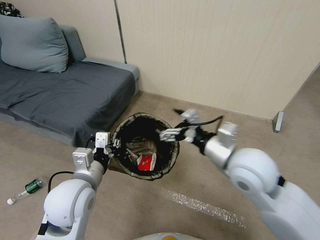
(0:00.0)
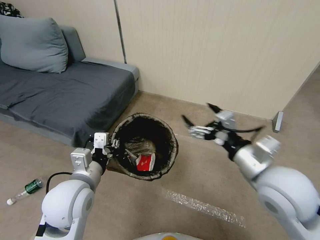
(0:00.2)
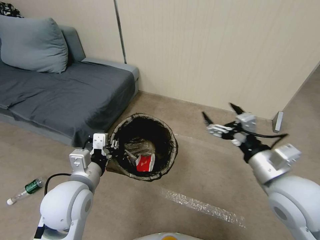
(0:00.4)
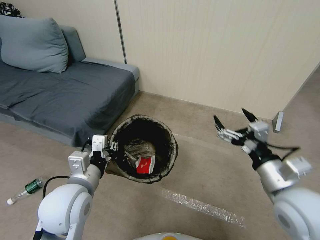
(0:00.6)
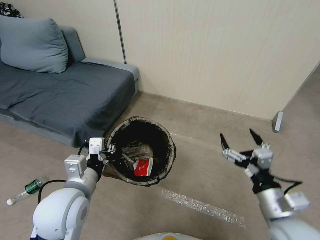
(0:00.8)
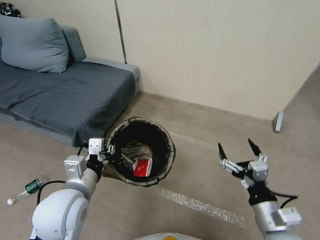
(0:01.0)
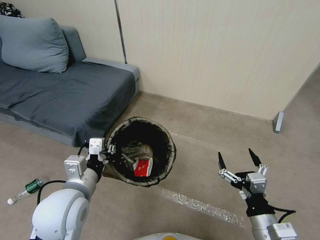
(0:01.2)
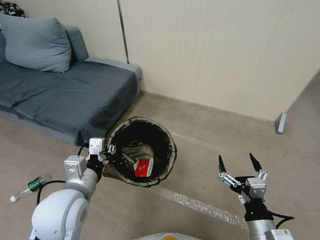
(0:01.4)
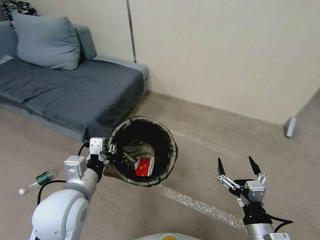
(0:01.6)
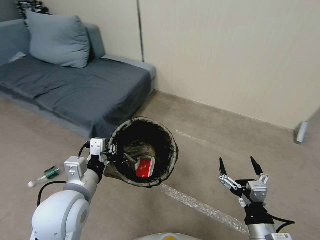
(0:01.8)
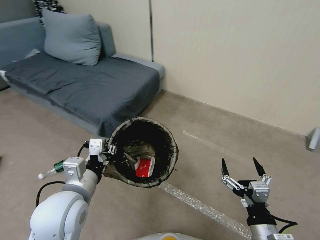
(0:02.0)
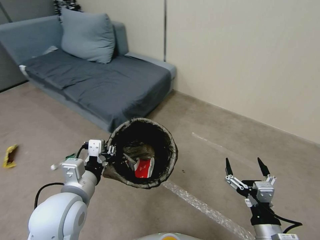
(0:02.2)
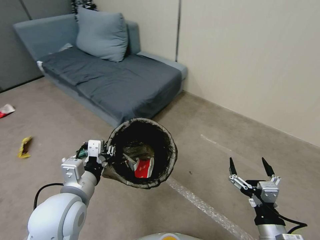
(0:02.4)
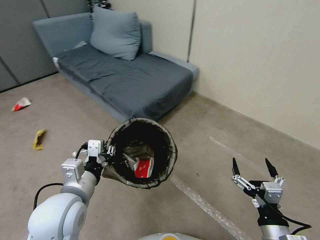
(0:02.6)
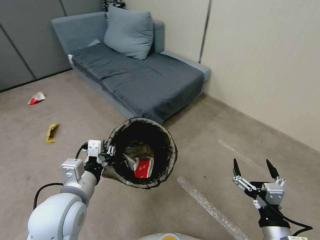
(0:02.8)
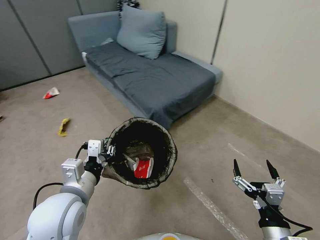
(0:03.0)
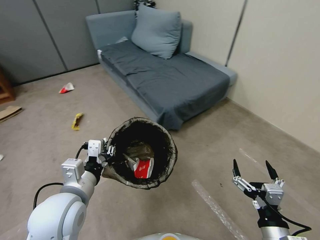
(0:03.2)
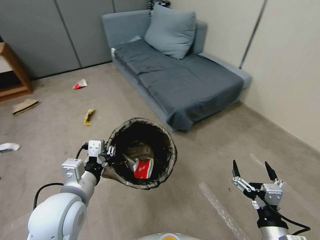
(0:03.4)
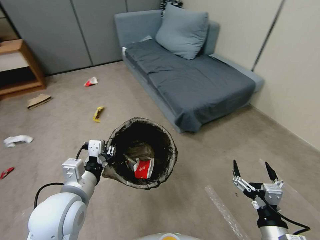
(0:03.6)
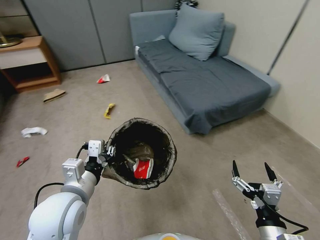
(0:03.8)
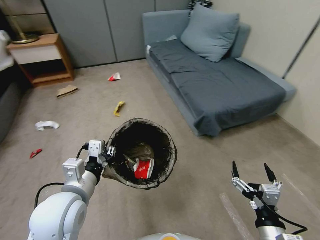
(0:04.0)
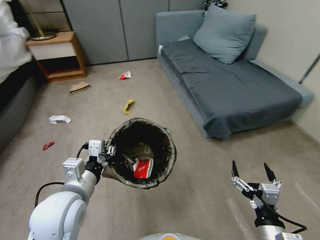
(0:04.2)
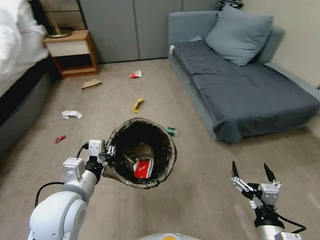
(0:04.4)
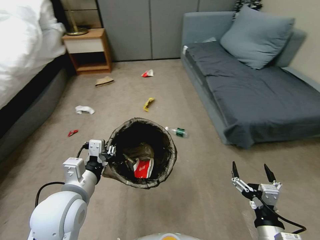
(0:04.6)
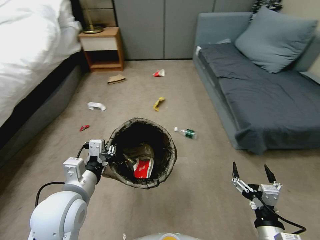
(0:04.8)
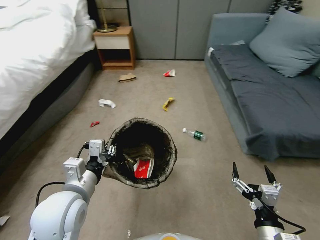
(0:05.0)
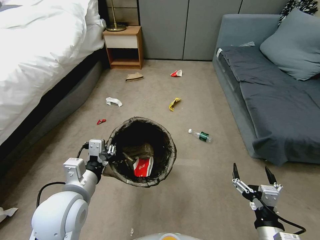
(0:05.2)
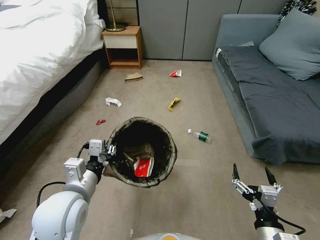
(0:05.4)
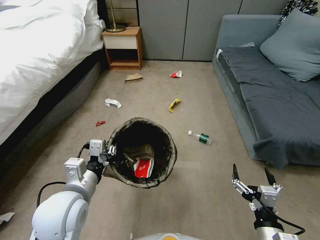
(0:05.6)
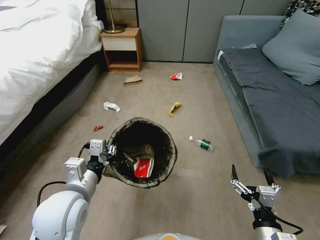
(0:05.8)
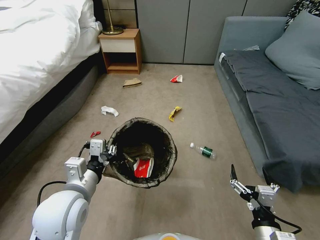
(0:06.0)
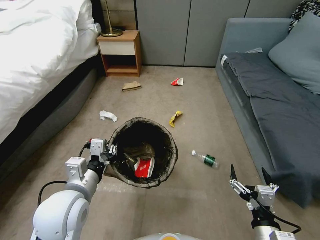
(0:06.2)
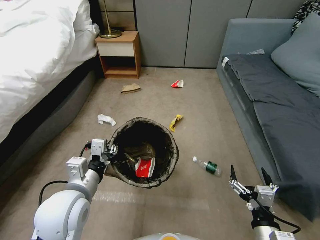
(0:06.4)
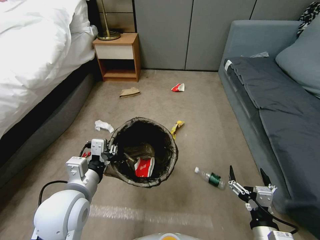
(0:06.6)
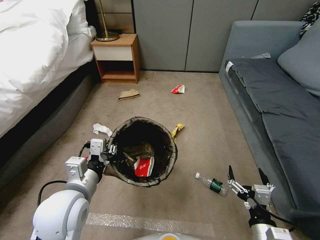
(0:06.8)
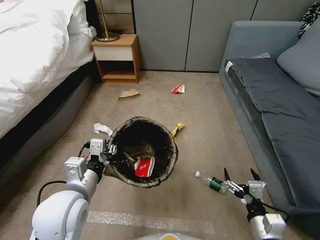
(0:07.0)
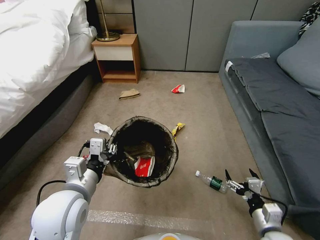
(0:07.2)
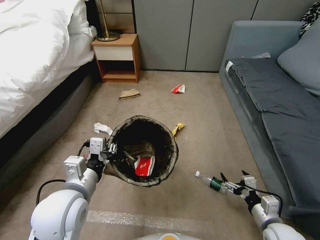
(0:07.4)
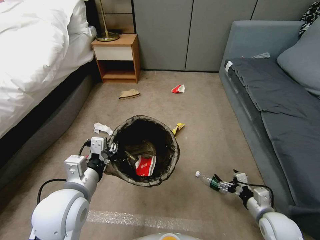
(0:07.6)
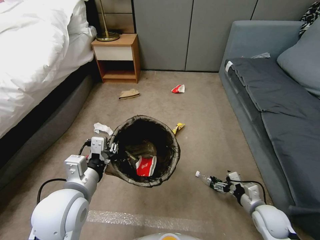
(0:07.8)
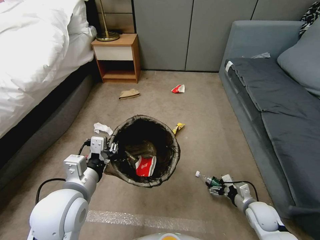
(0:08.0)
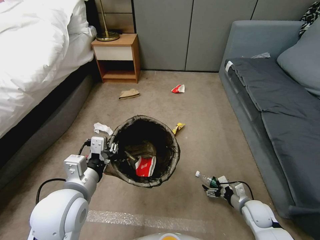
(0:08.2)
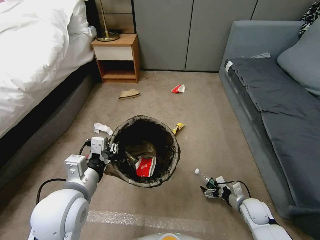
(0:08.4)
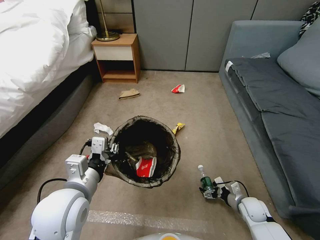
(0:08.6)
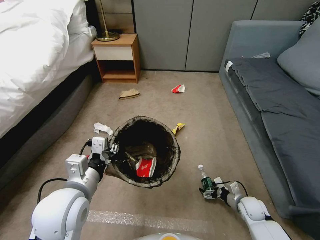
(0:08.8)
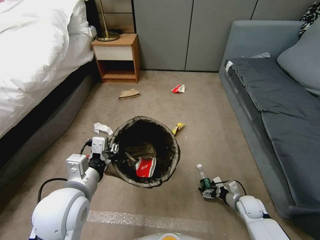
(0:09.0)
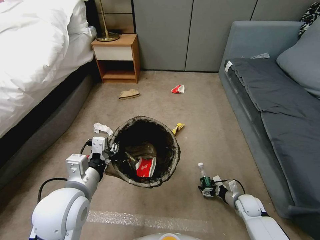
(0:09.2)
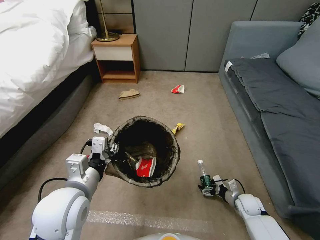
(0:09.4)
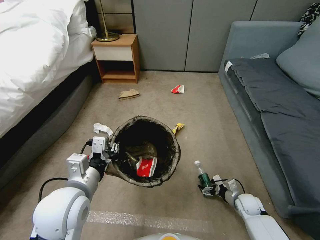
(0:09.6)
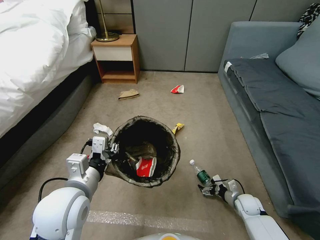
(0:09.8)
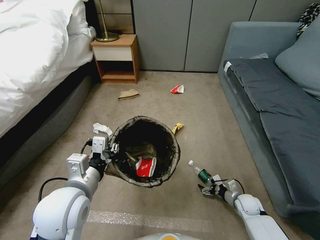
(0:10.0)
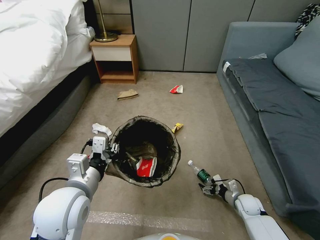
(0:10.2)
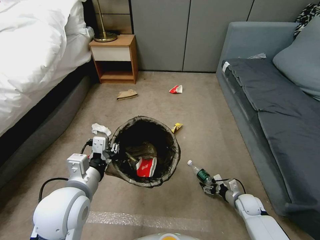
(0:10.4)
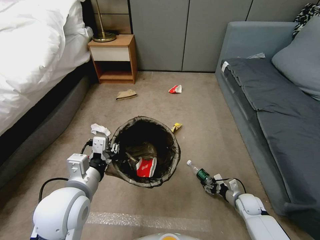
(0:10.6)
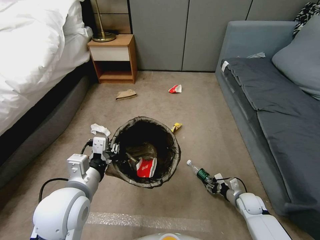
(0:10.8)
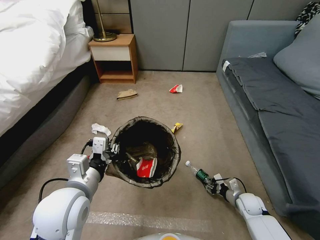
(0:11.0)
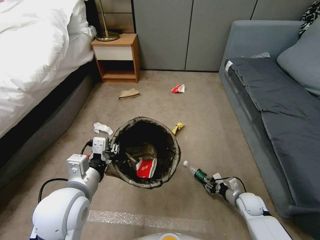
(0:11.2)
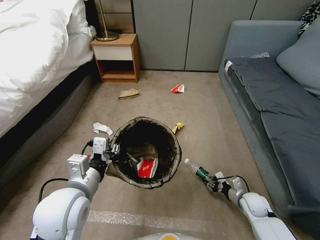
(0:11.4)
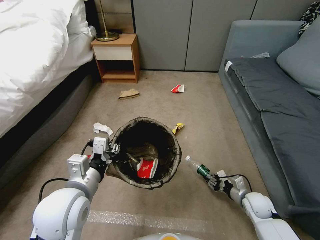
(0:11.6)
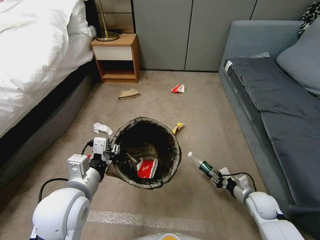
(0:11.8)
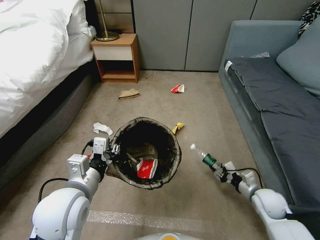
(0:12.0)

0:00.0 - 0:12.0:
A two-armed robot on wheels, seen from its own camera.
Task of the whole recording: Pick up the trash bin, then pick up the garbage from the floor and place it into the trash bin.
0:00.0 - 0:01.6: The right gripper shifts about 25 cm backward and downward.
0:06.0 - 0:07.6: The right gripper moves forward, to the right and downward, approximately 15 cm.
0:07.6 - 0:09.0: The right gripper is displaced downward and forward by approximately 15 cm.
0:09.0 - 0:10.4: There are only small adjustments of the grippers.
0:10.4 - 0:12.0: The right gripper heads upward, covering roughly 10 cm, and closes.

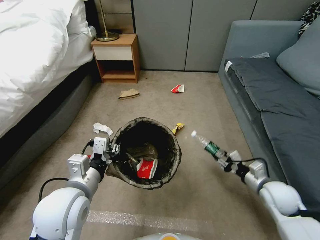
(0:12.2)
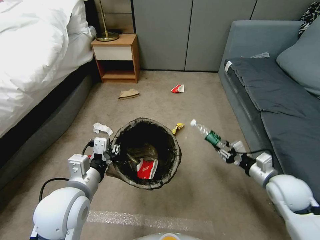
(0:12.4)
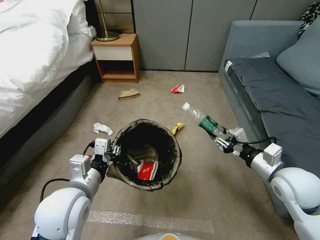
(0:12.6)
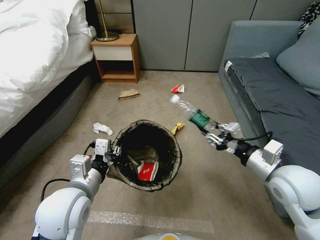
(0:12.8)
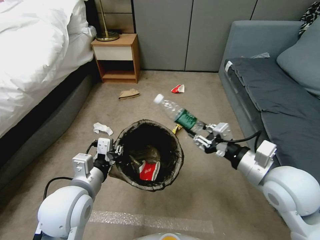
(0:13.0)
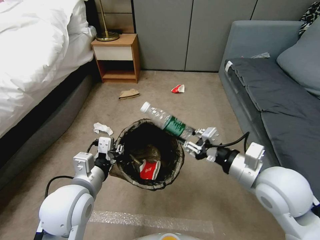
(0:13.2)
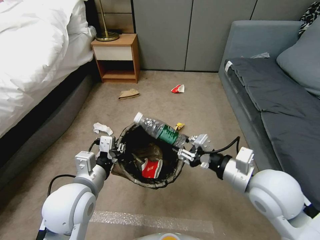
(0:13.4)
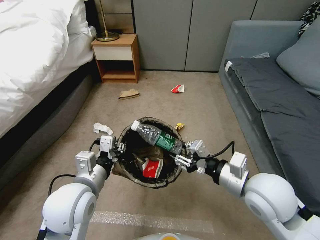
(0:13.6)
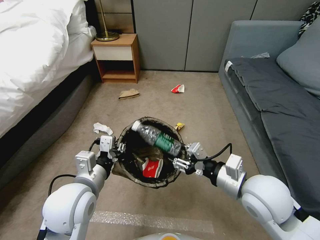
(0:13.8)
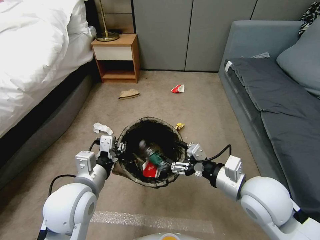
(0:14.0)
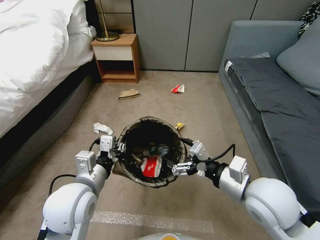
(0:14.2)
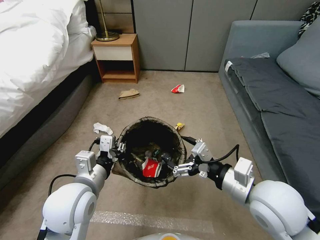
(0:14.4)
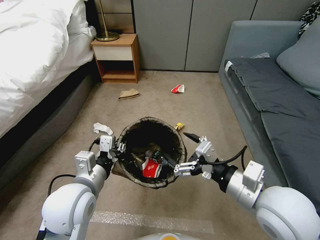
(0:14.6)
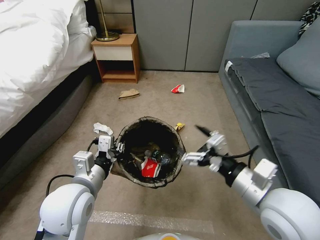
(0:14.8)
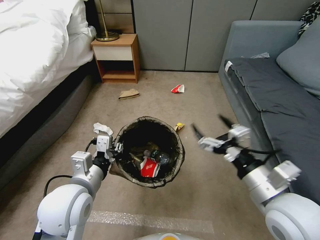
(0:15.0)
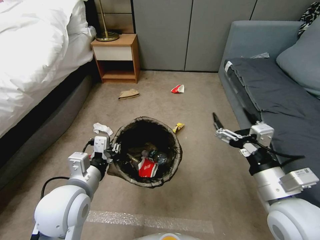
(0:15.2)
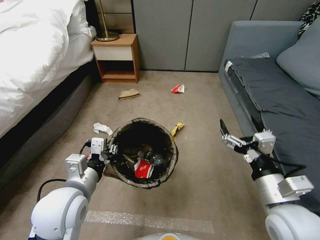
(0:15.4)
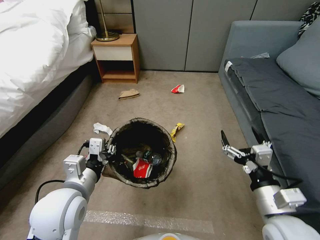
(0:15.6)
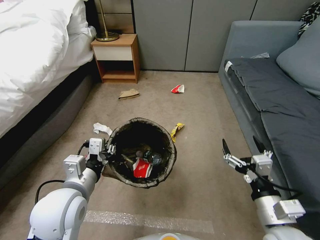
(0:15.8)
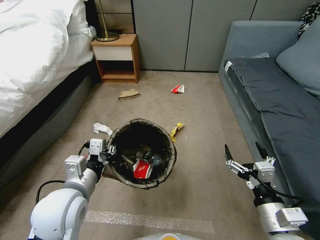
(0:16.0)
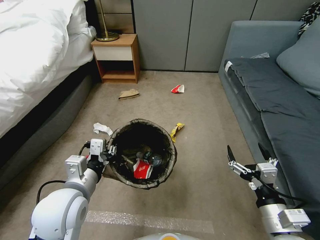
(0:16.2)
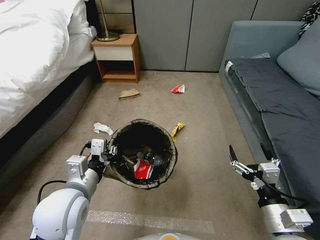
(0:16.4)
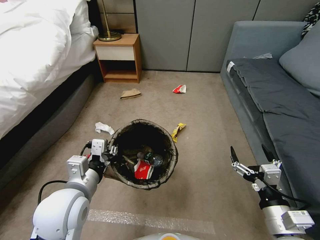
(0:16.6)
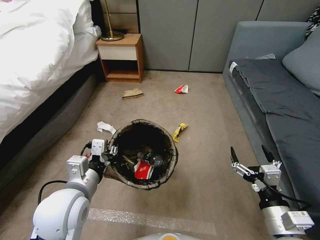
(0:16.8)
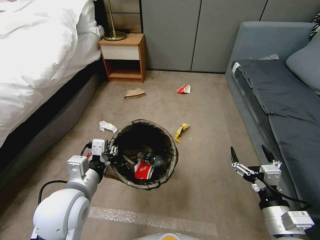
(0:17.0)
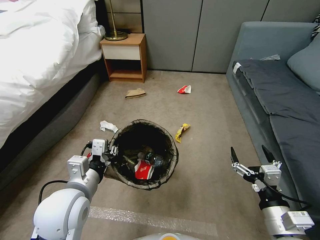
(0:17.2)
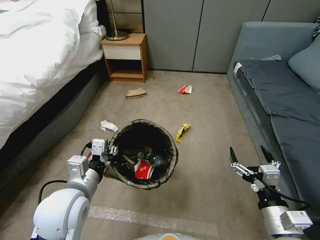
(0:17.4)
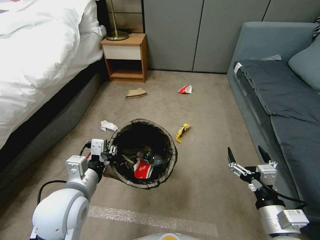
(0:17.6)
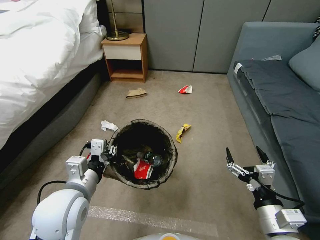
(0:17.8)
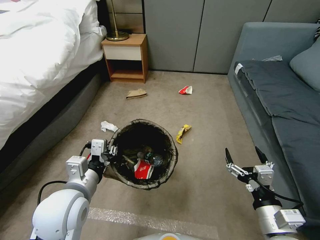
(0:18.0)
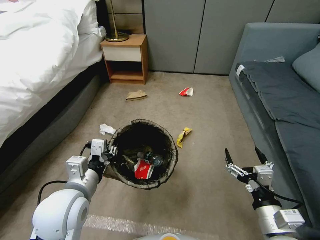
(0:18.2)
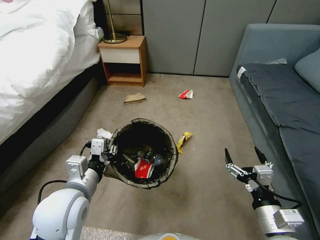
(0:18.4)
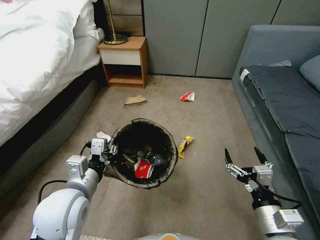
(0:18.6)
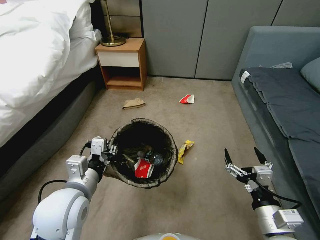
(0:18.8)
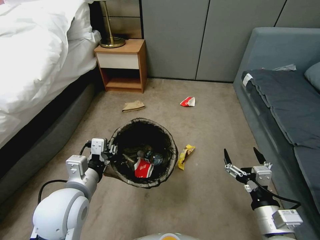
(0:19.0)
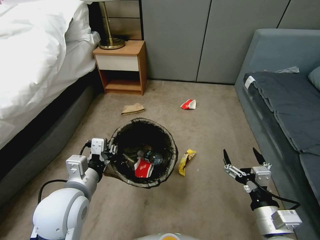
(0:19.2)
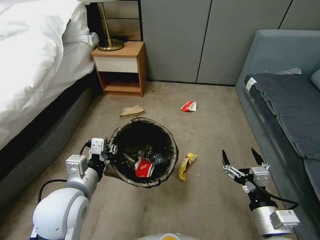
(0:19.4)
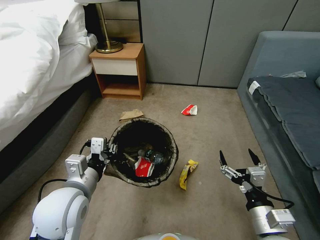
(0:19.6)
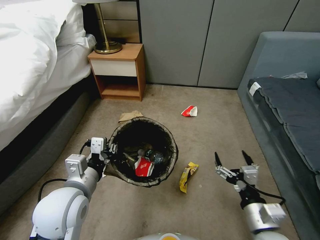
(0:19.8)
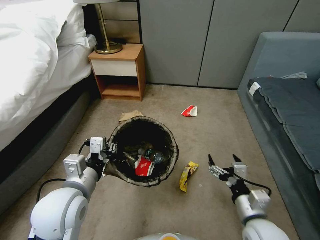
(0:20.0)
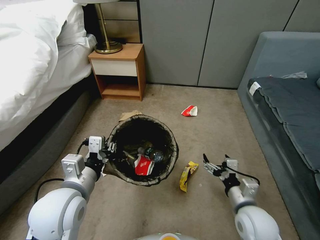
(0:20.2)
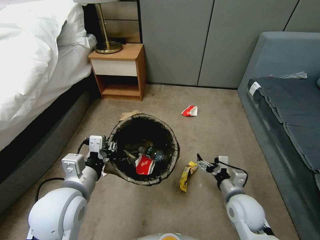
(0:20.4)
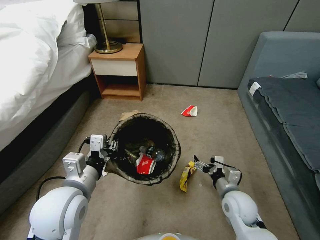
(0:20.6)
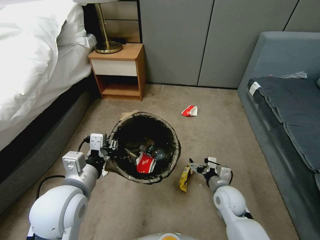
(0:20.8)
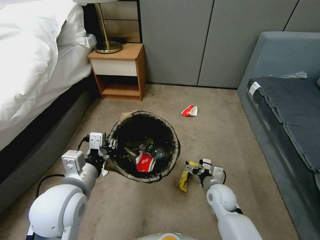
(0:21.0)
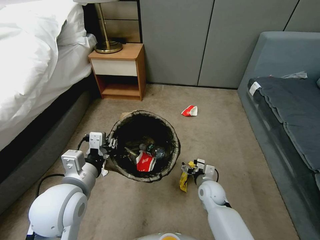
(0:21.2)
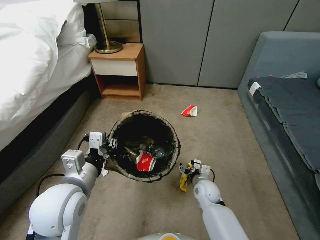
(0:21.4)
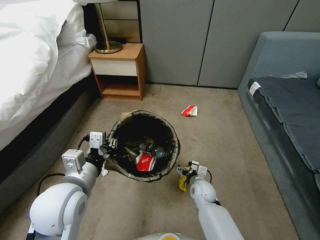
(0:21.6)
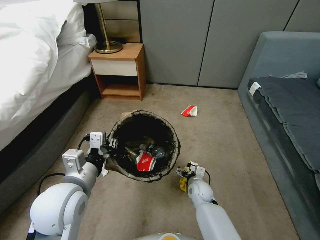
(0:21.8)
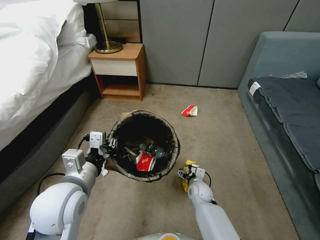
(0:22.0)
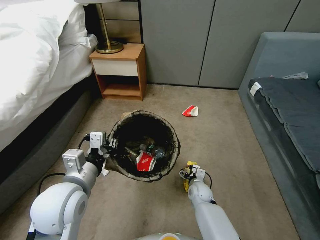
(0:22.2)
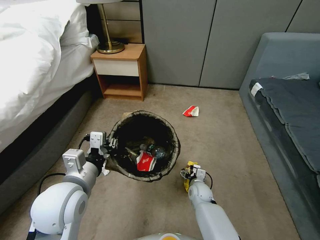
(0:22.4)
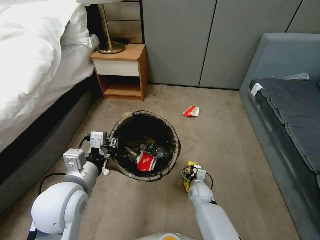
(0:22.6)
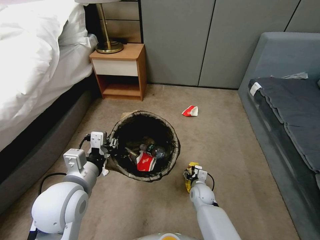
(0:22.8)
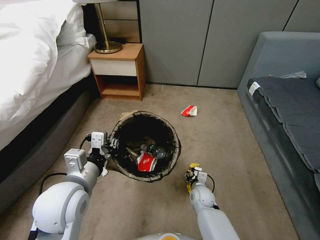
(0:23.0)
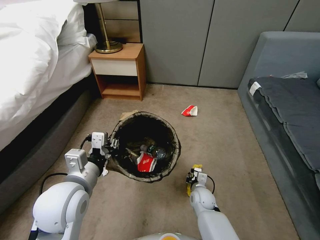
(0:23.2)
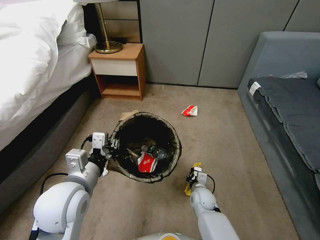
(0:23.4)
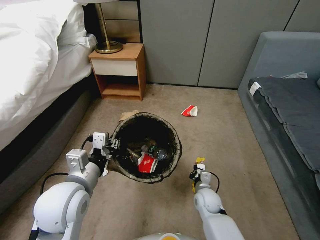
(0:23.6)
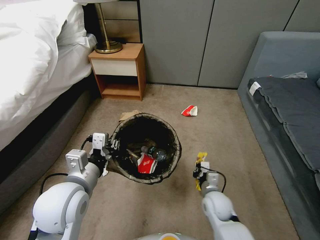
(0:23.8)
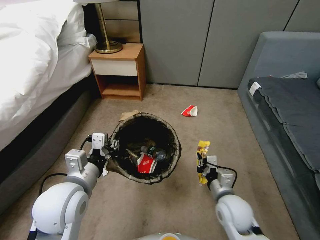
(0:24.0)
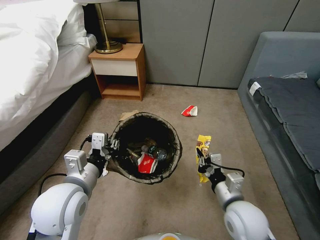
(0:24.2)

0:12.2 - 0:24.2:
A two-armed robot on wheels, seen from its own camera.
Task of the whole recording: Pick up the trash bin, then pick up the garbage from the floor and place it into the trash bin.
0:12.2 - 0:13.8: The right gripper goes about 20 cm upward and to the left.
0:13.8 - 0:15.2: The right gripper shifts approximately 5 cm backward, and opens its fingers.
0:15.2 - 0:16.6: The right gripper moves downward, approximately 10 cm.
0:19.8 - 0:21.2: The right gripper heads forward and downward, covering some 25 cm.
0:21.2 - 0:22.6: The right gripper travels downward by some 5 cm.
0:22.6 - 0:24.2: The right gripper shifts roughly 30 cm upward and backward, and closes its fingers.
